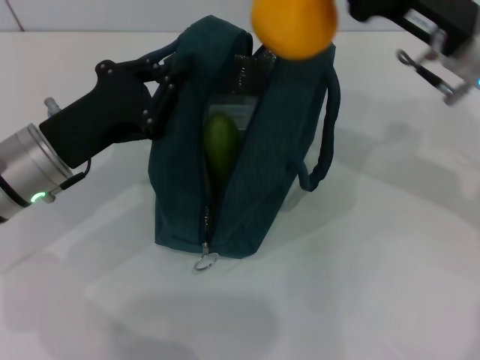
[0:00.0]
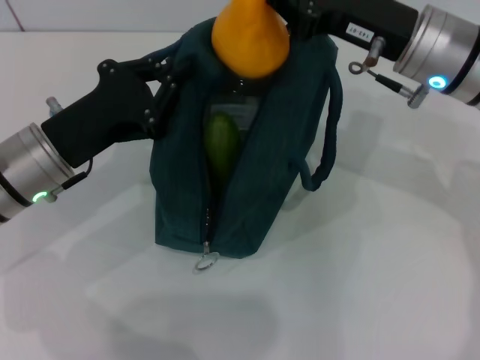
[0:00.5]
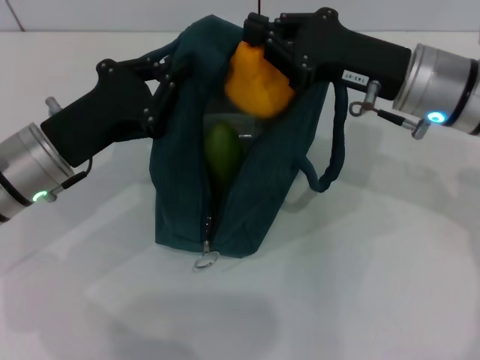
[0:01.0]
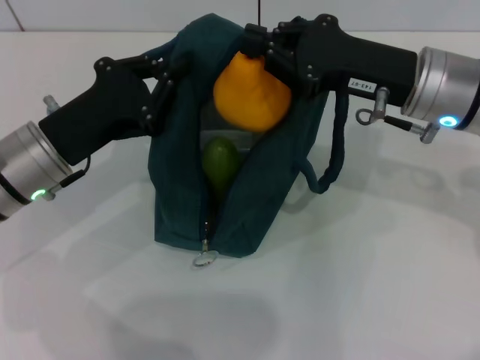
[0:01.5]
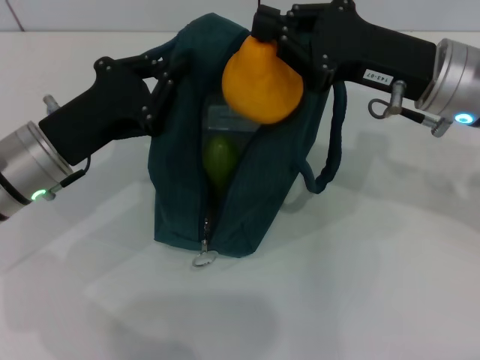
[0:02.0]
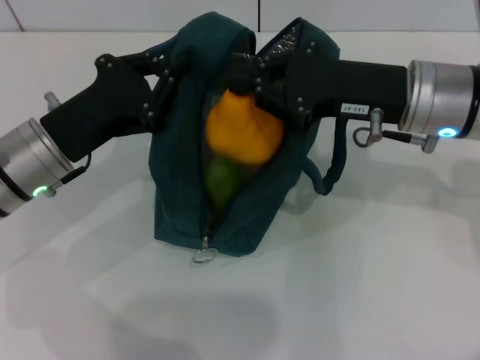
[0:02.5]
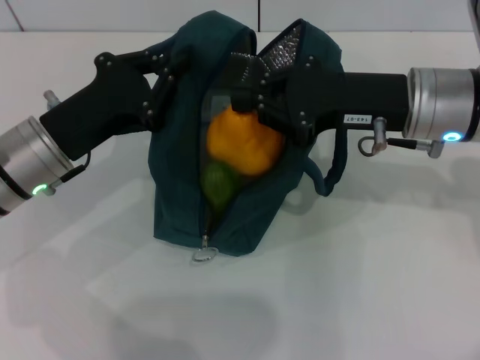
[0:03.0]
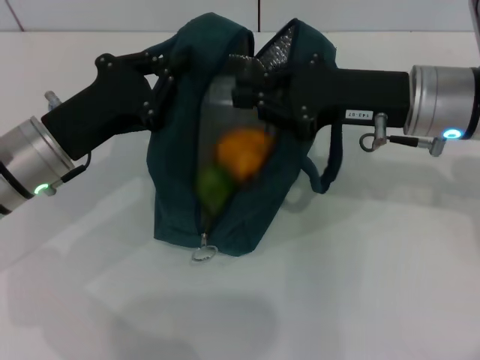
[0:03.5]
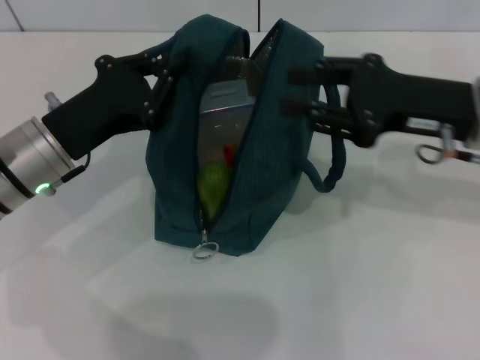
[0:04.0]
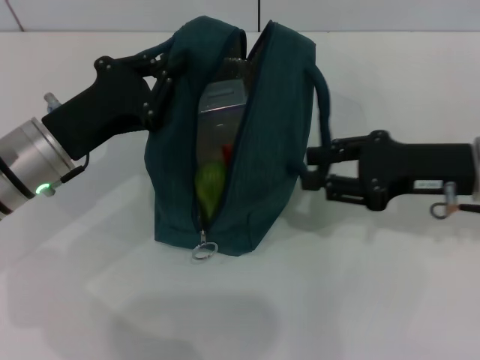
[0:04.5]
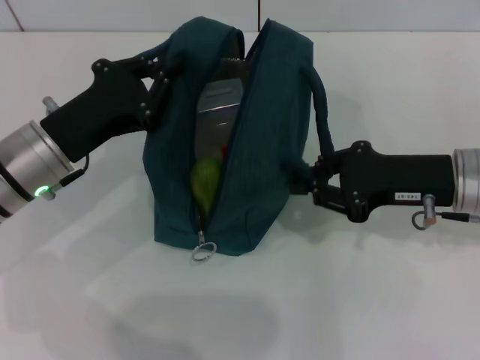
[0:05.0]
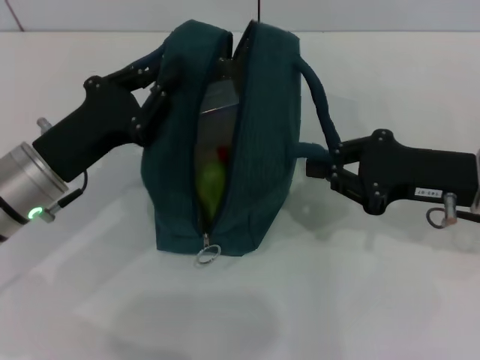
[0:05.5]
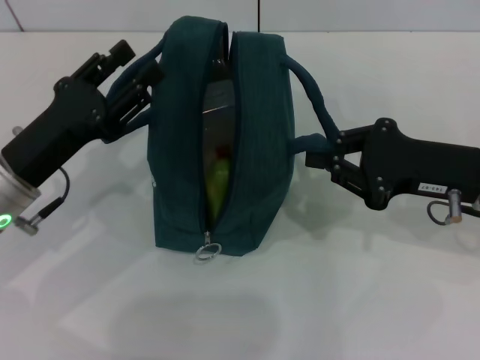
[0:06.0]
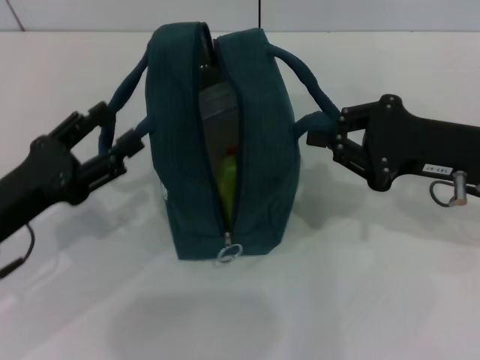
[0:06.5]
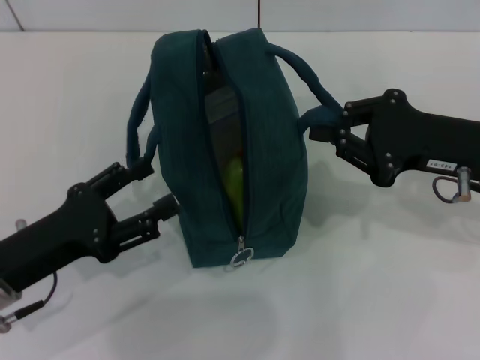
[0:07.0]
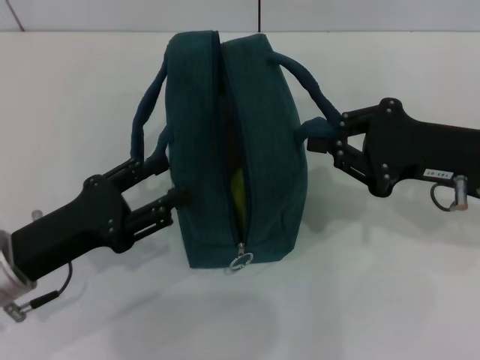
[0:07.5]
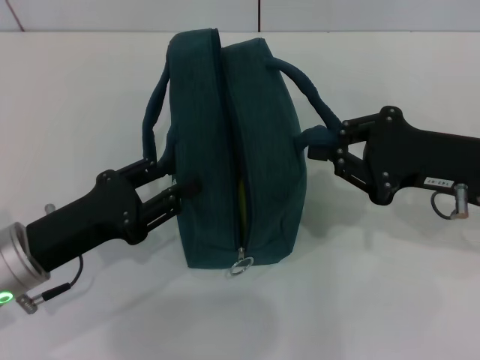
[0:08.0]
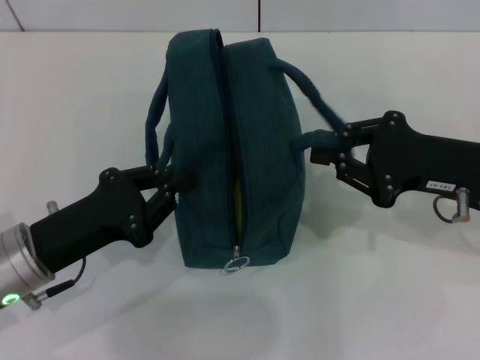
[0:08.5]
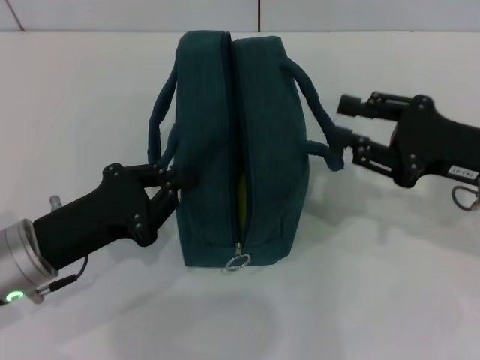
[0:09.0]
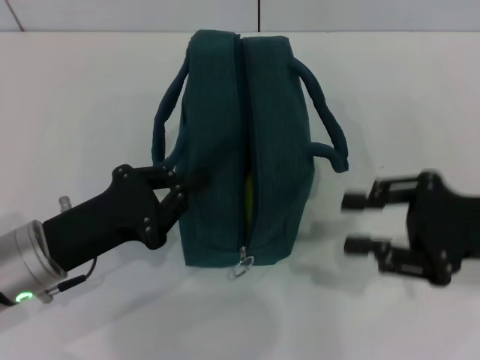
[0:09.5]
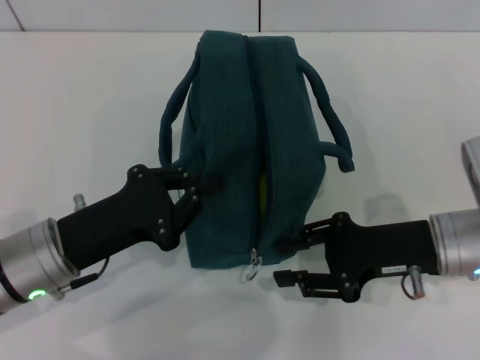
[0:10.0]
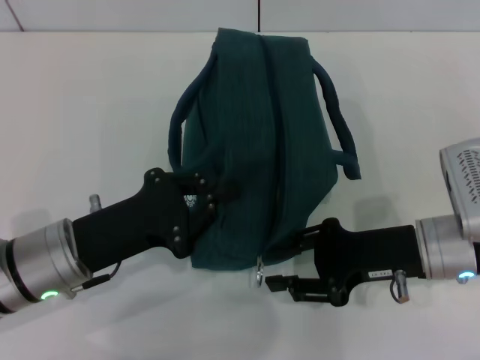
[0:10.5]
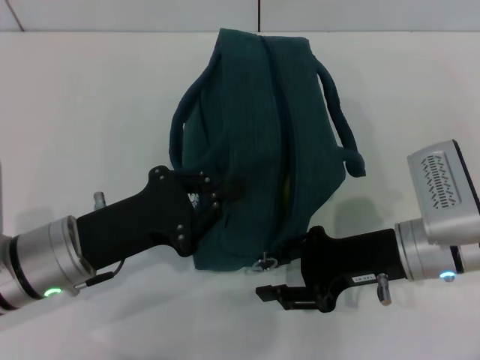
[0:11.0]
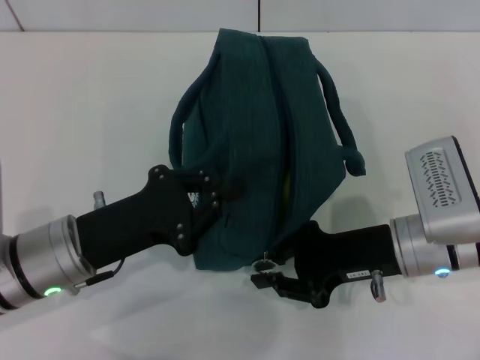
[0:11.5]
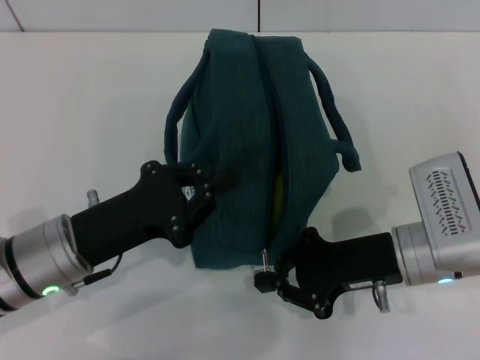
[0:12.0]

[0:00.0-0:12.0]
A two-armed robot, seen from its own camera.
Step, 0:04.0 to 0:08.5: Hold the lunch bag with your right hand.
0:00.0 to 0:02.0: There are only small adjustments of the grippers.
0:02.0 to 0:04.0: There are only small adjustments of the grippers.
0:04.0 to 0:06.0: The right gripper ends up some 5 cm from where it was, and closes up. The left gripper opens up.
0:06.0 to 0:08.0: The left gripper ends up approximately 5 cm from where it was, and opens and closes again.
0:08.0 to 0:10.0: The left gripper closes; the right gripper is displaced downward by approximately 5 cm, and opens up.
0:10.0 to 0:12.0: The right gripper closes.

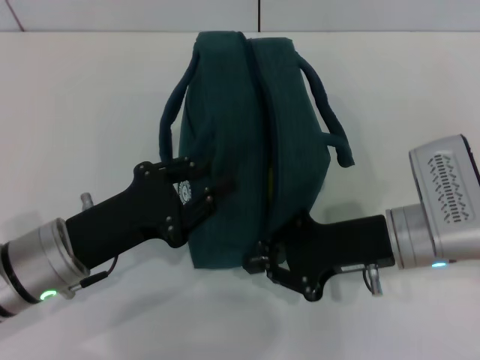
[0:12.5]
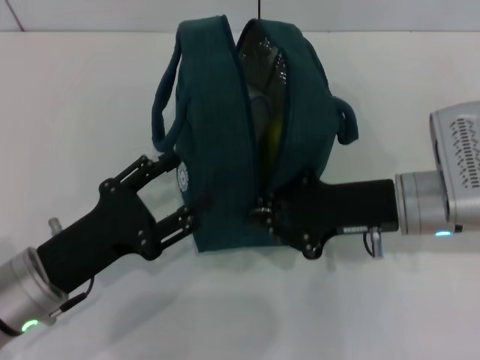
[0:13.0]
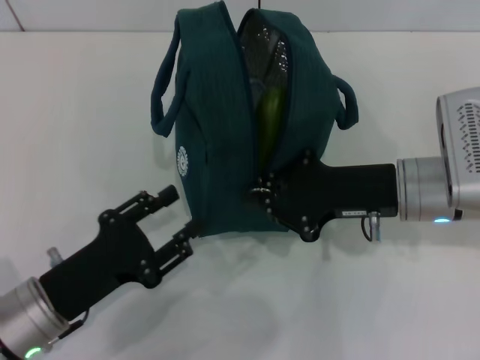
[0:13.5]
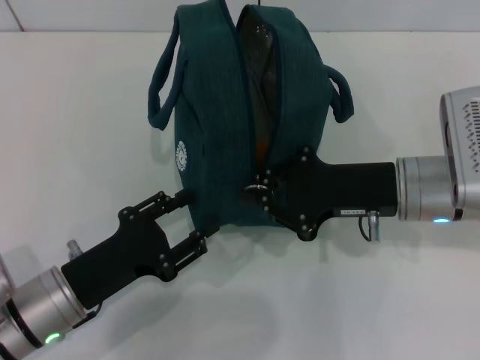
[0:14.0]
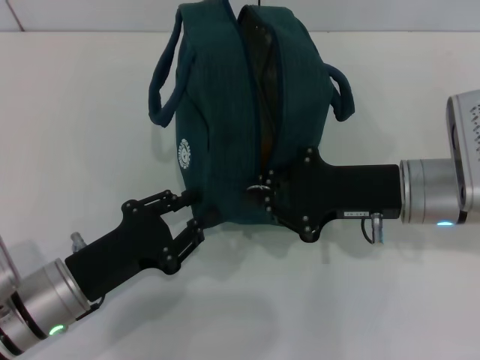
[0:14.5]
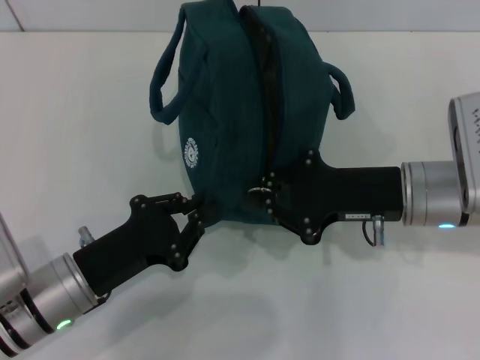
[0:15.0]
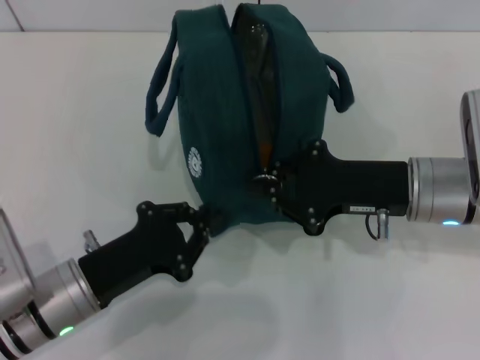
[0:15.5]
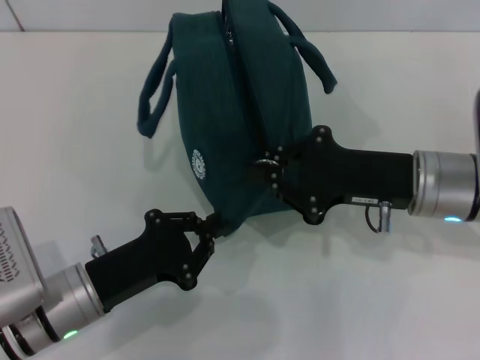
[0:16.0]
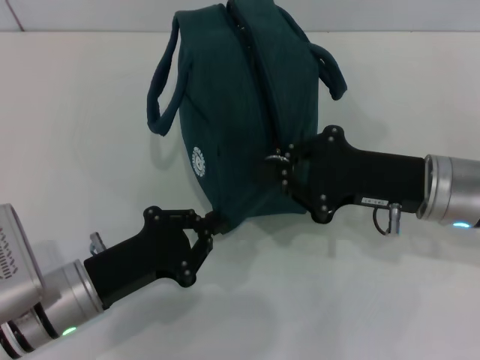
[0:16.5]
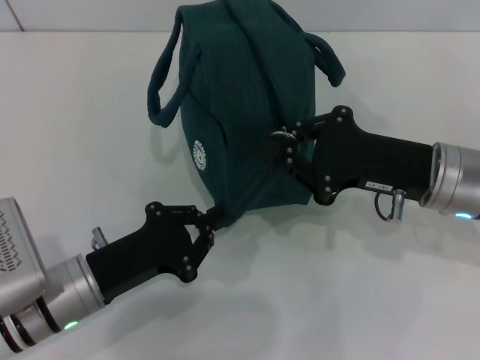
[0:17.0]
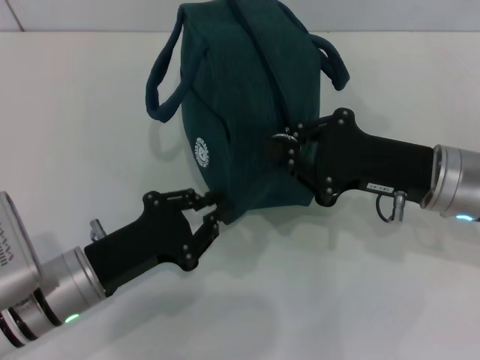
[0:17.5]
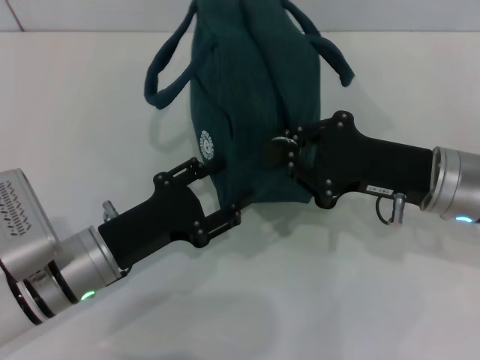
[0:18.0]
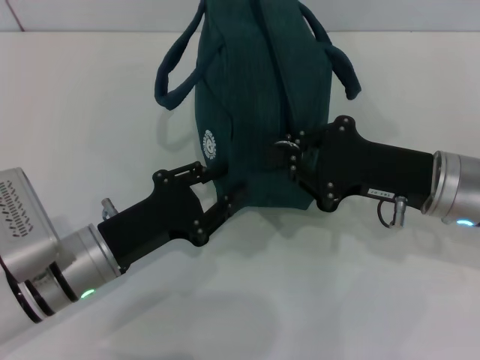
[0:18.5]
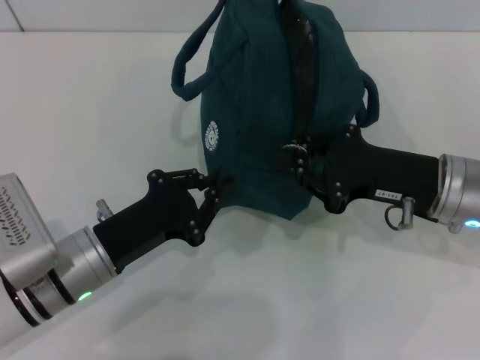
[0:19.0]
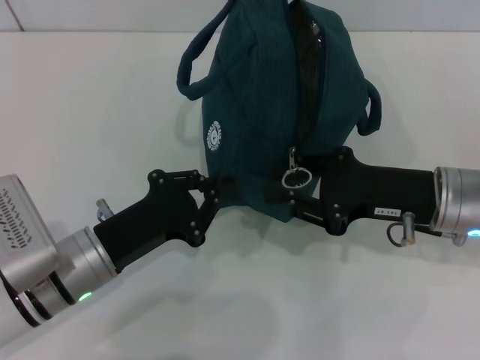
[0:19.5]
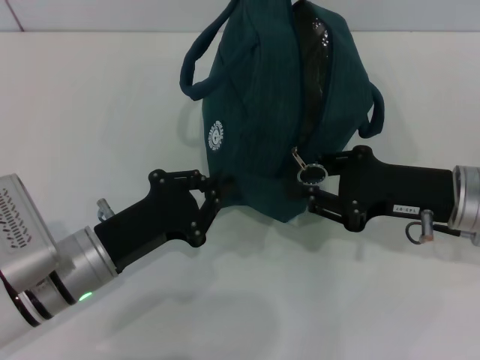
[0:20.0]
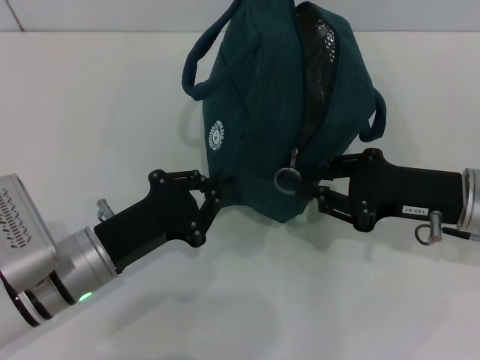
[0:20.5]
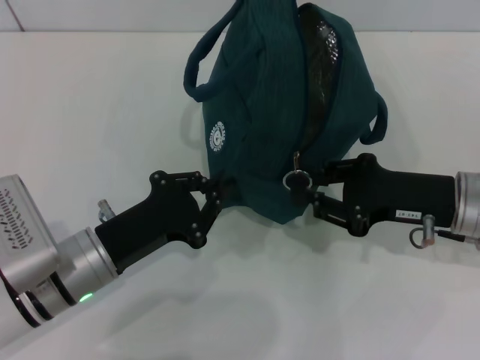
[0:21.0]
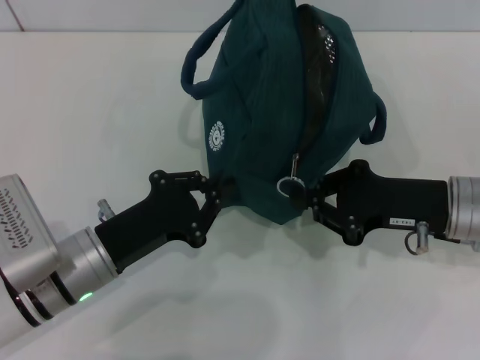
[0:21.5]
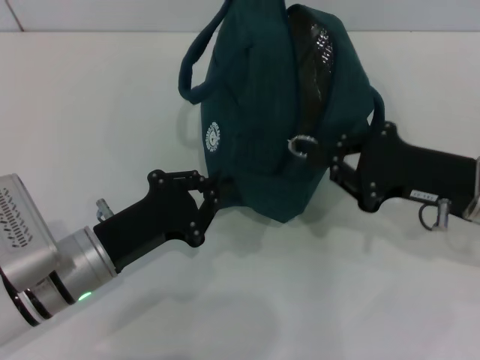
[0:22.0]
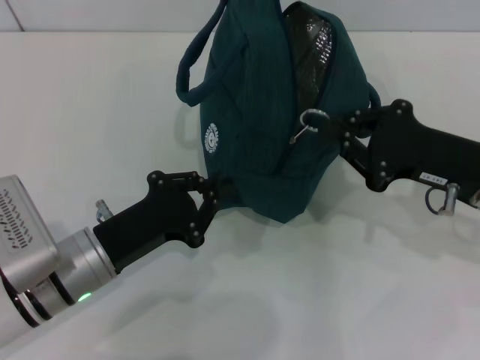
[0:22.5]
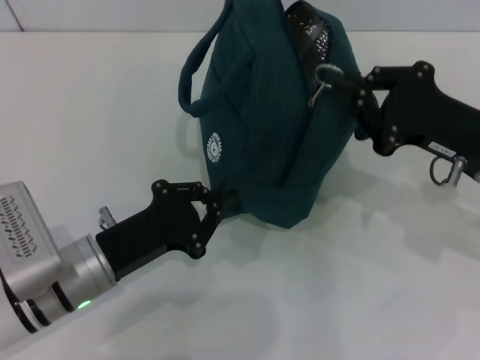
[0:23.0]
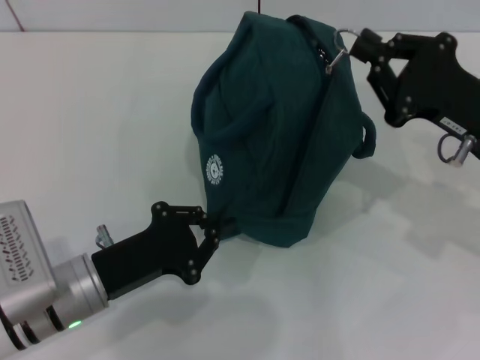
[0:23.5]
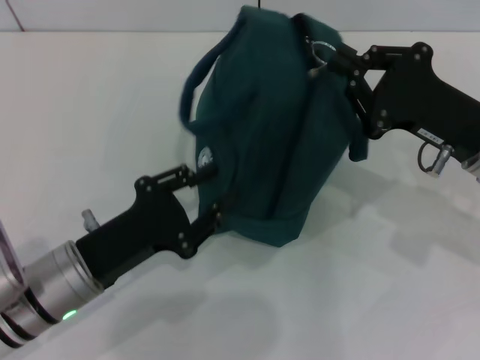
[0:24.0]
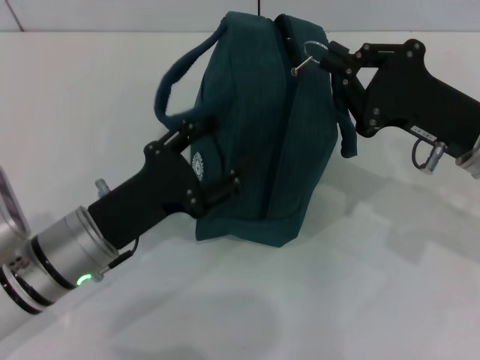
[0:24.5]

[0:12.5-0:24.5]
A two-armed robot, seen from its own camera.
0:12.5 to 0:14.5: The left gripper opens up.
0:14.5 to 0:16.5: The left gripper closes up.
0:16.5 to 0:18.5: The left gripper opens.
0:18.5 to 0:20.5: The left gripper closes its fingers.
0:20.5 to 0:22.5: There are only small adjustments of the grippers.
0:22.5 to 0:24.5: The left gripper opens.

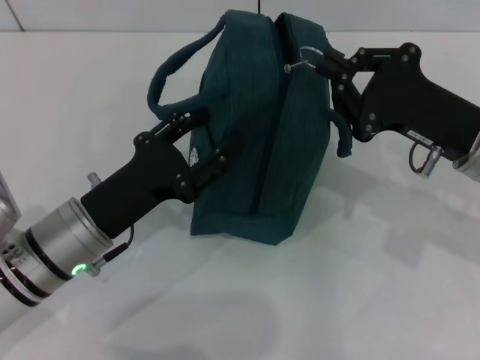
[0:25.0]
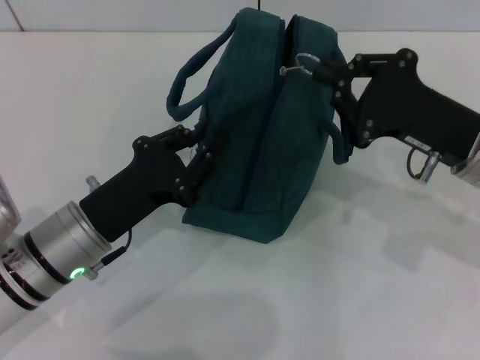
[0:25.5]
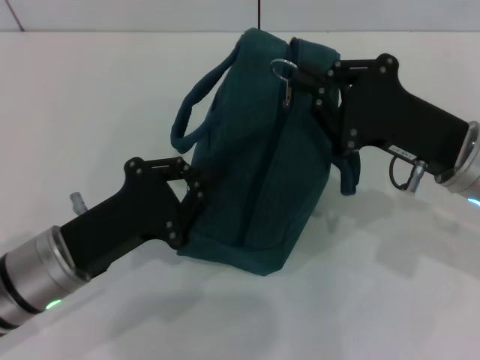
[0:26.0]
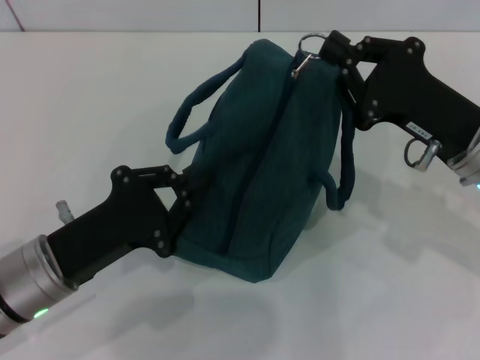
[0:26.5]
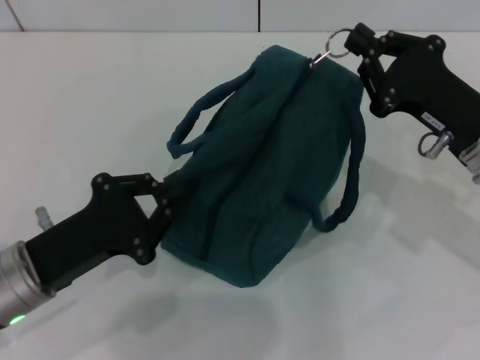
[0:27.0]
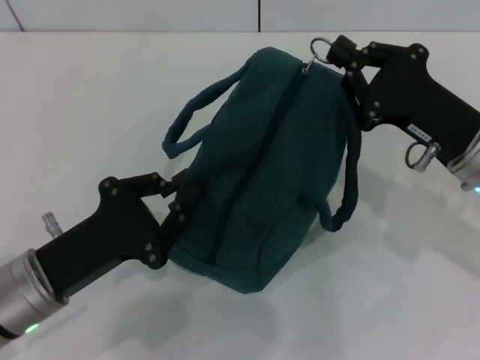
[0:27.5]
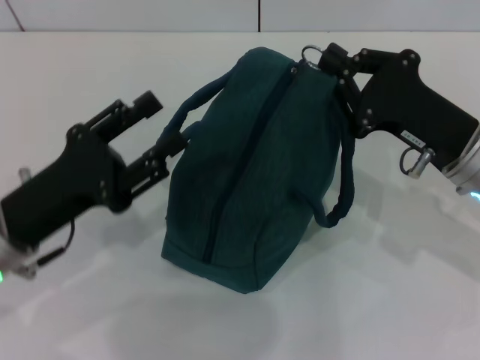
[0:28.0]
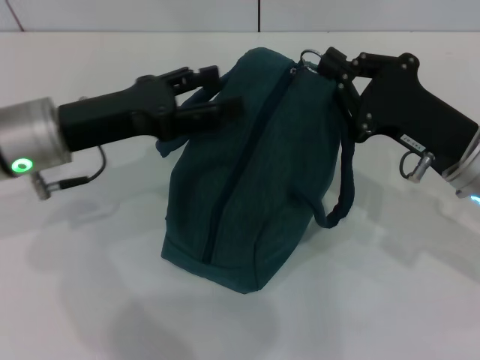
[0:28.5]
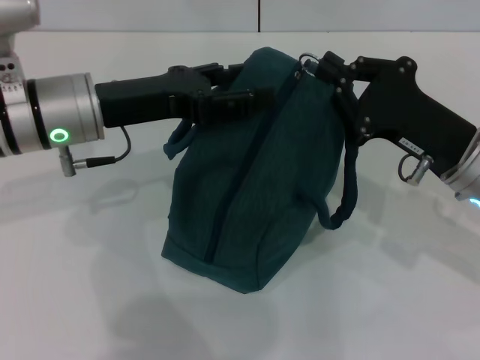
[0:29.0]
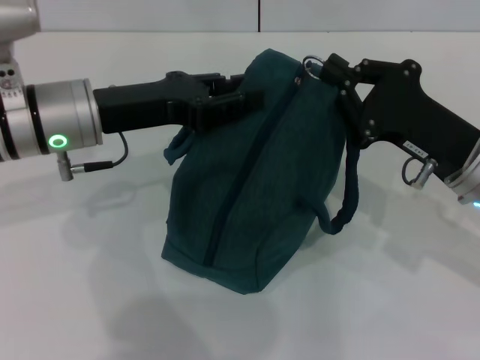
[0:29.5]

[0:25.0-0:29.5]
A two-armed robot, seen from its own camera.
0:25.0 to 0:27.0: The left gripper moves about 5 cm, and closes its fingers.
0:27.0 to 0:29.5: The left gripper moves forward and upward, some 15 cm, and opens up.
